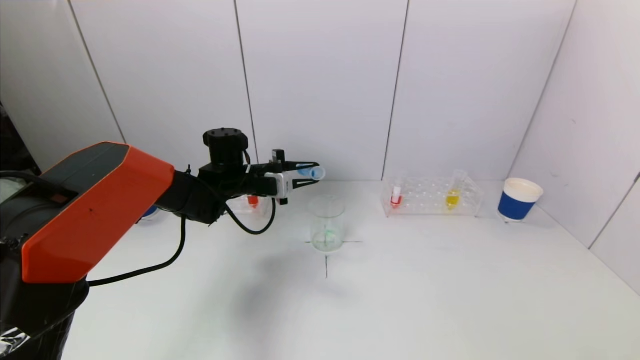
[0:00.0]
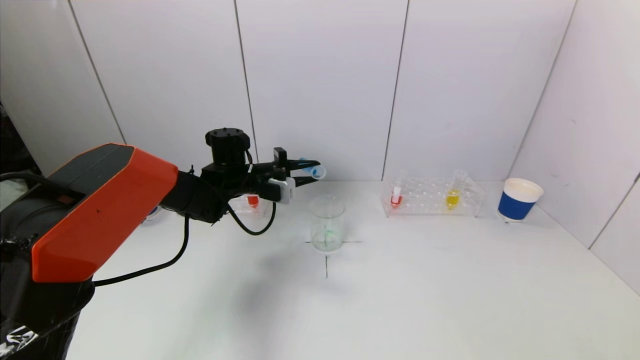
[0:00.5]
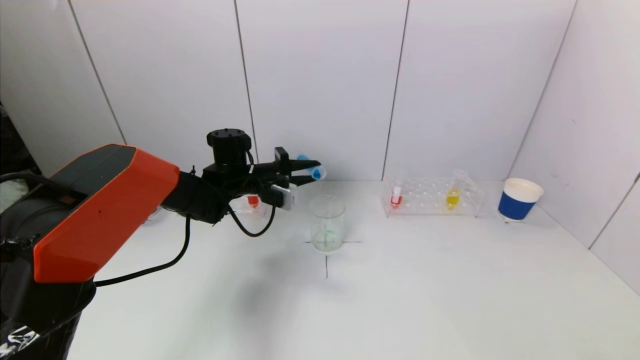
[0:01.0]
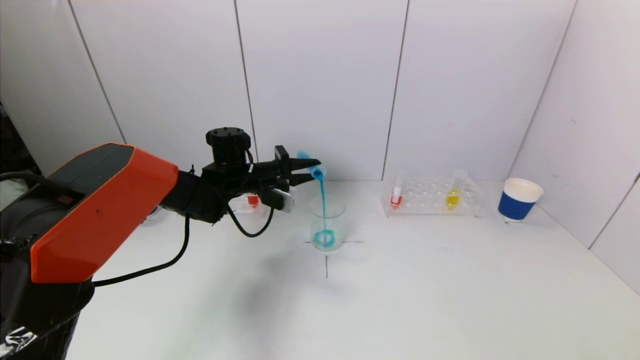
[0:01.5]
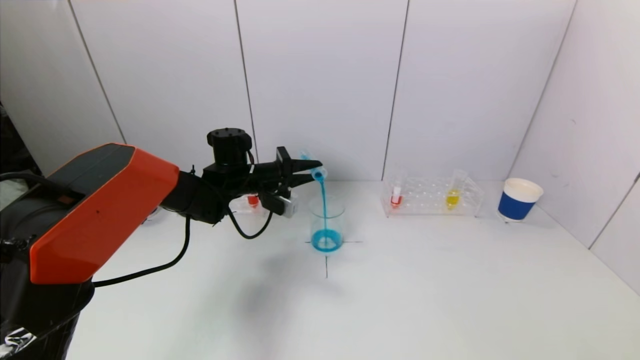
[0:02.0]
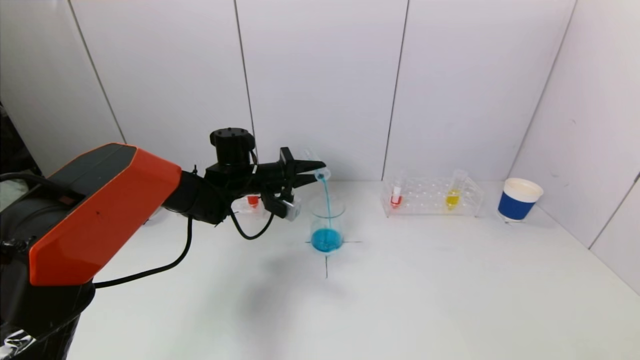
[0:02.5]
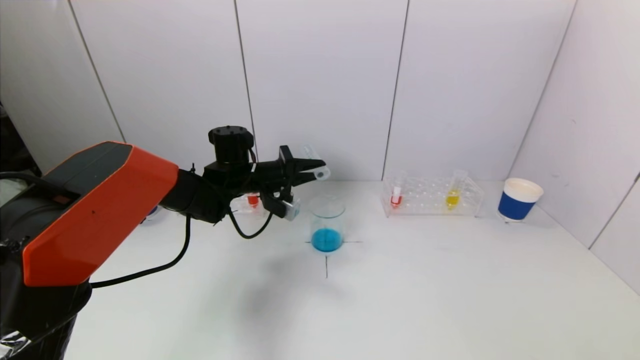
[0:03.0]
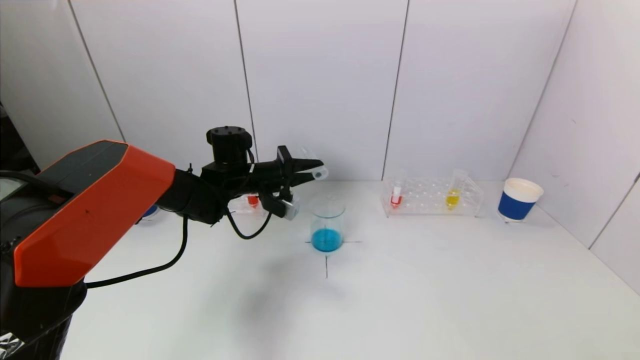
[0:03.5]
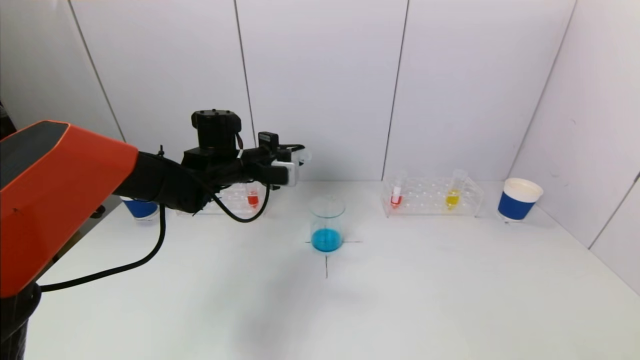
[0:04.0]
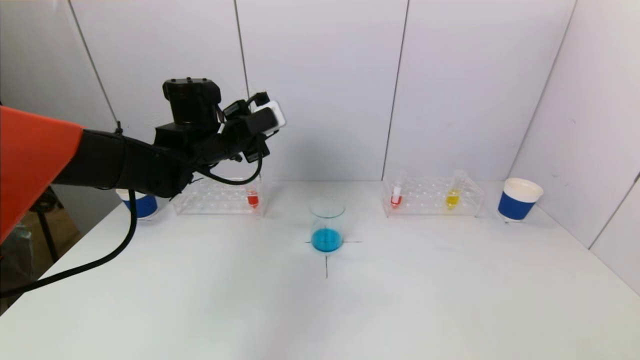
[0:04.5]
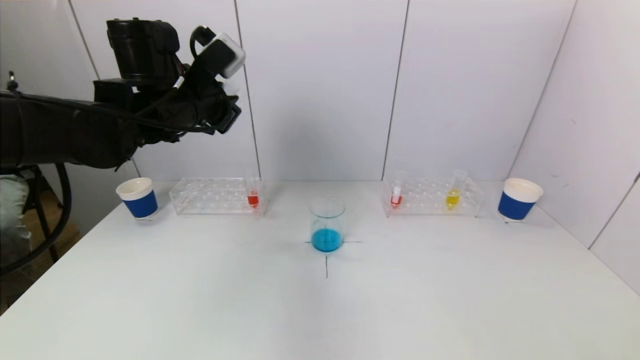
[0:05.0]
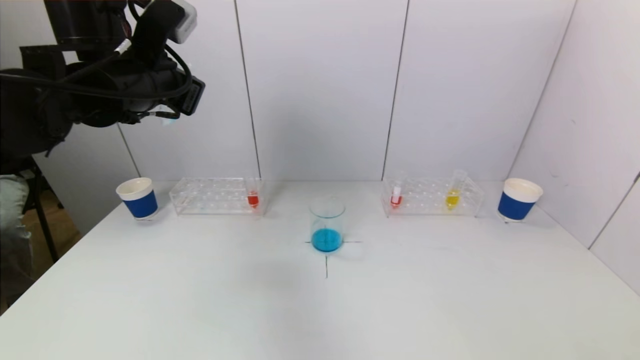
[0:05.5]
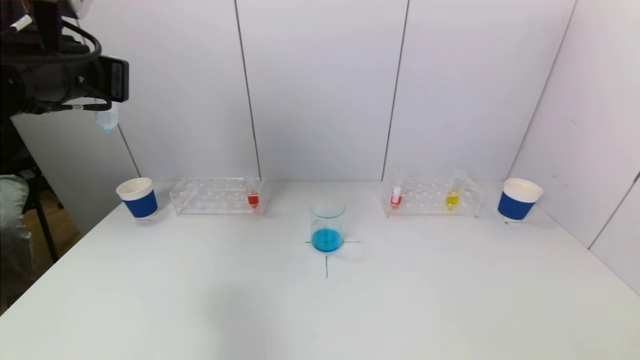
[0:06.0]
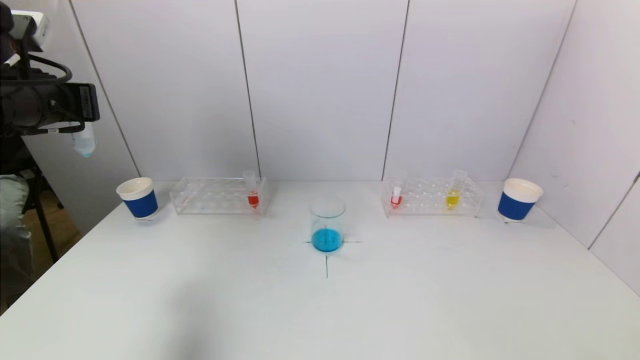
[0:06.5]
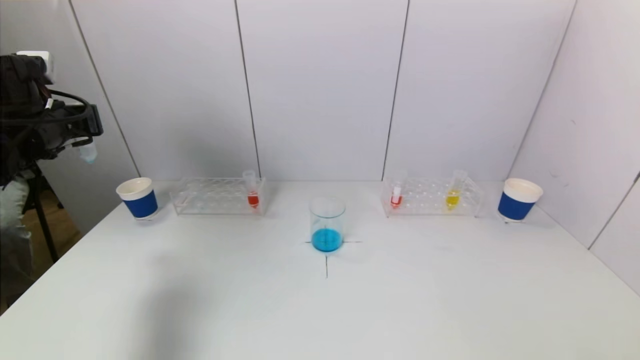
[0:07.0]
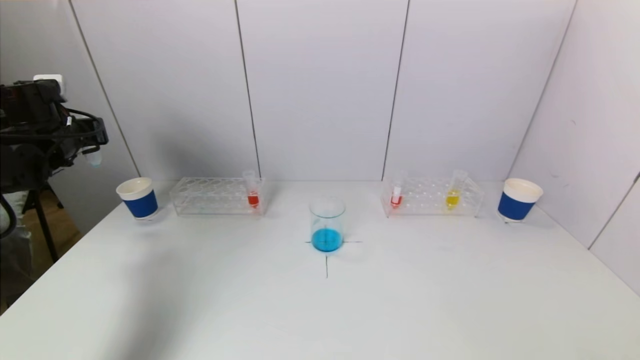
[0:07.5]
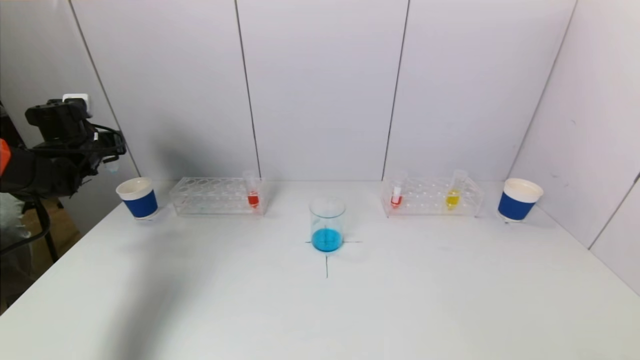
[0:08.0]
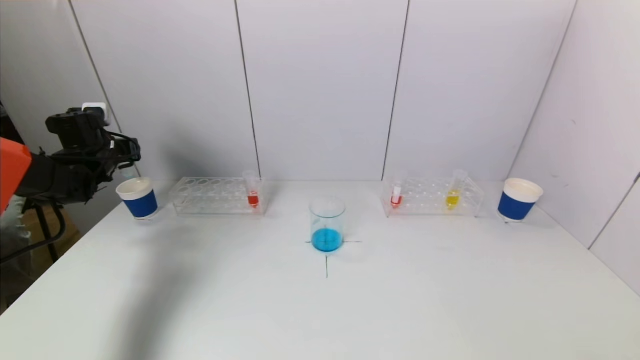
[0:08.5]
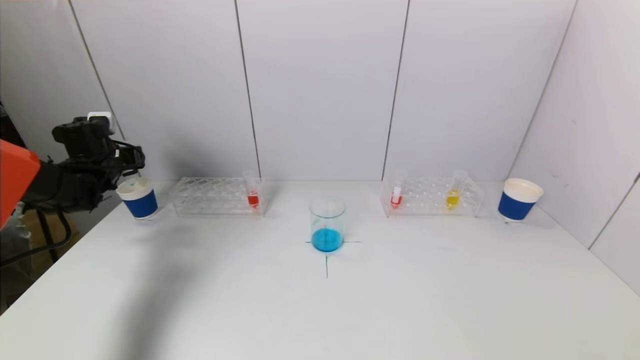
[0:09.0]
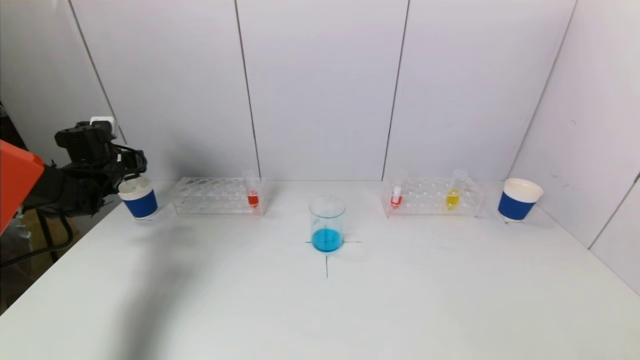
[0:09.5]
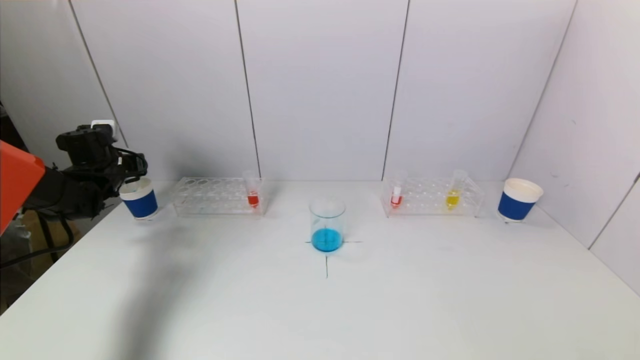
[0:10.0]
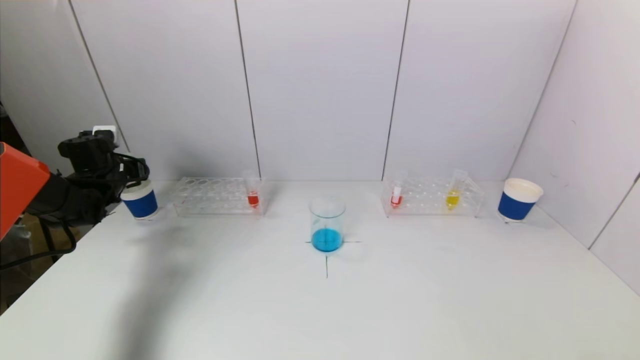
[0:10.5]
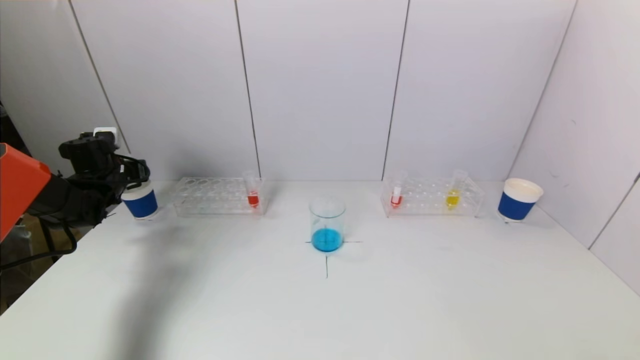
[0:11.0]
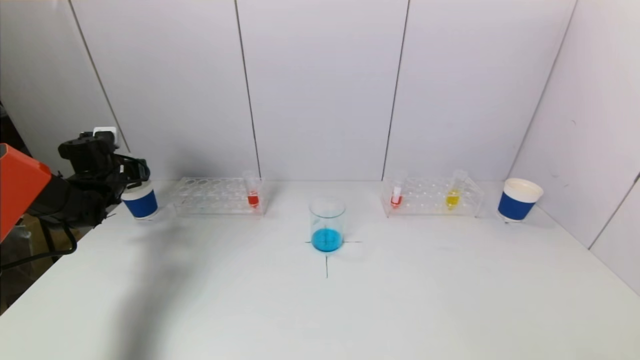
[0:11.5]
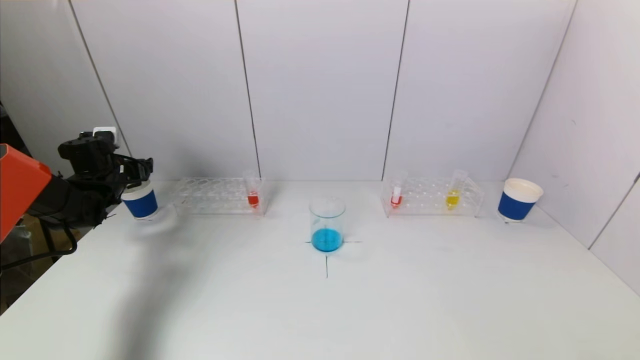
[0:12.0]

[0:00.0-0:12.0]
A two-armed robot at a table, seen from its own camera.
Task of the whole recording: pick up a test tube with pigment on left test tube rack and a test tube with pigment on right test tube rack by grippers and pour them into the beaker.
Step, 0:00.0 to 0:03.0: Pour the blue reagent into the graduated cylinder with the left gripper.
Step, 0:03.5 to 0:12.0: Place the test tube into the paper cup with the left gripper.
0:02.0 to 0:04.0: The left gripper ends up approximately 5 cm from where it was.
0:04.0 to 0:06.0: The left gripper is displaced upward, backward and to the left by some 25 cm.
0:06.0 to 0:08.0: The left gripper is displaced forward, downward and to the left by roughly 30 cm.
0:08.0 to 0:10.0: The left gripper travels downward by roughly 5 cm.
0:10.0 to 0:12.0: The left gripper opens up.

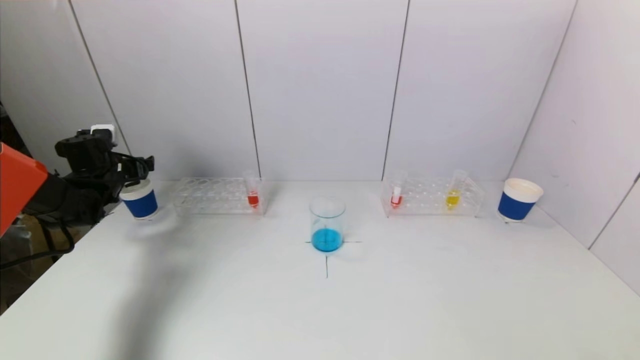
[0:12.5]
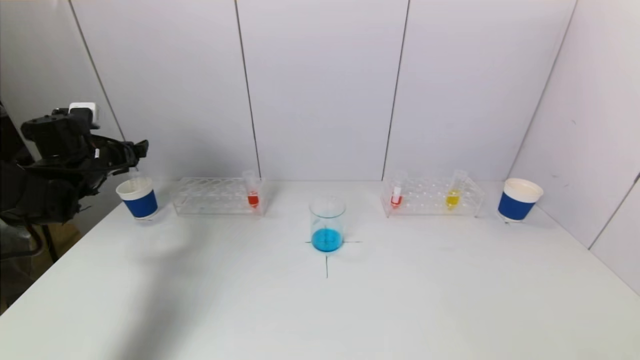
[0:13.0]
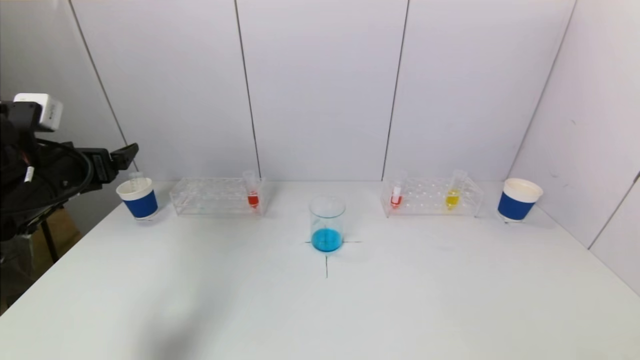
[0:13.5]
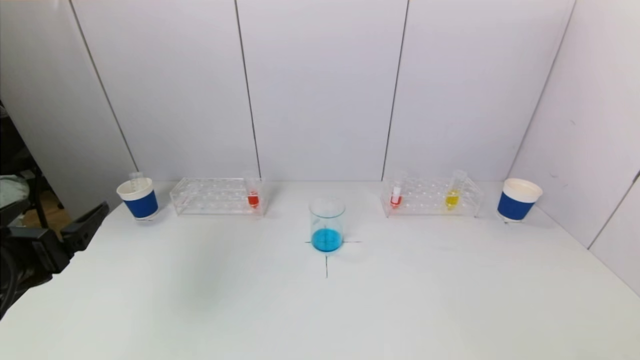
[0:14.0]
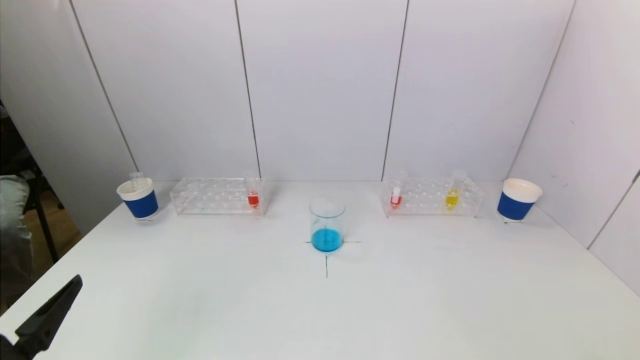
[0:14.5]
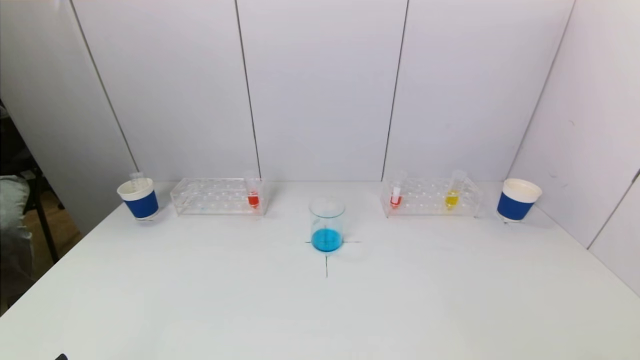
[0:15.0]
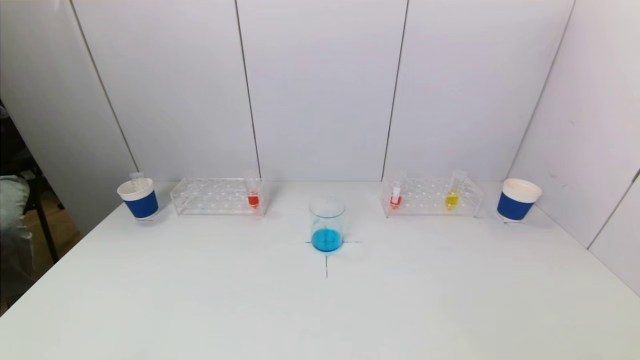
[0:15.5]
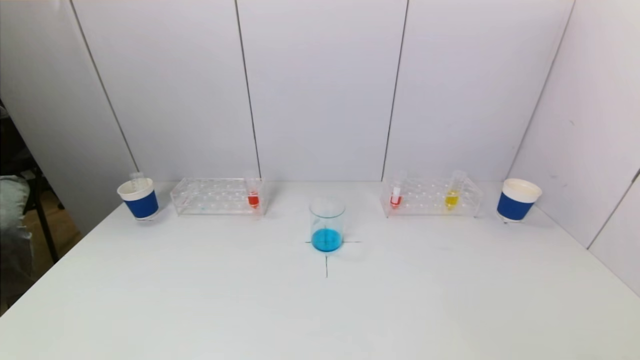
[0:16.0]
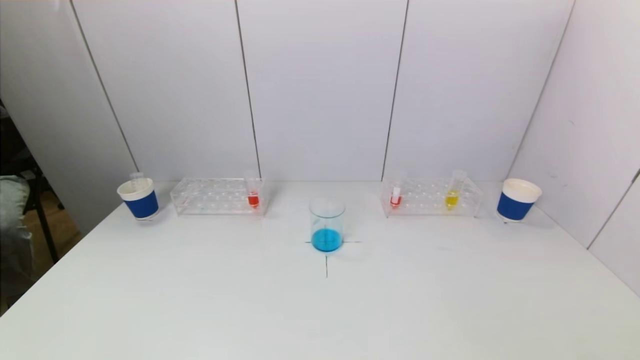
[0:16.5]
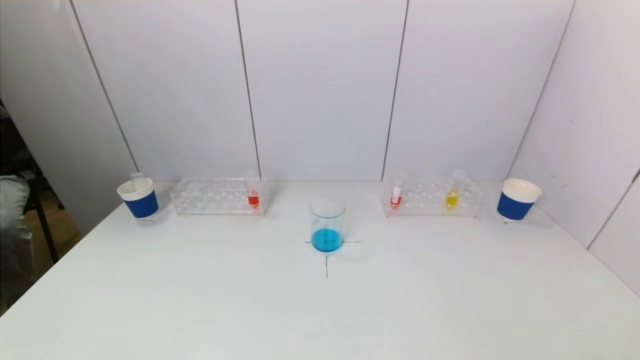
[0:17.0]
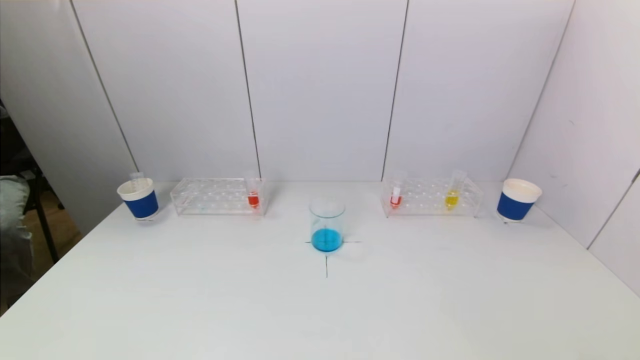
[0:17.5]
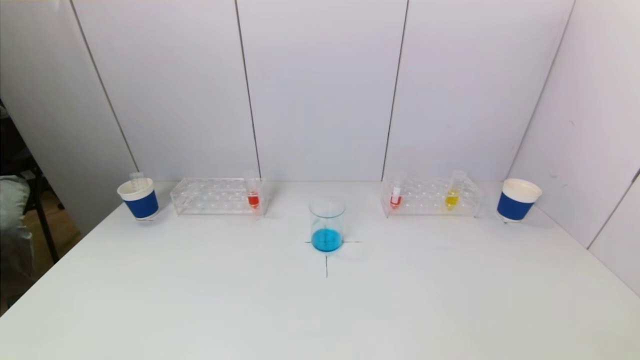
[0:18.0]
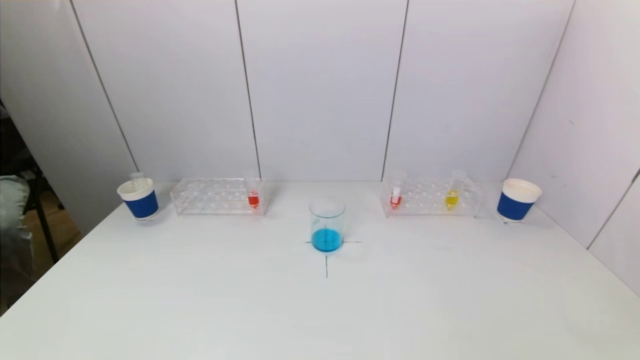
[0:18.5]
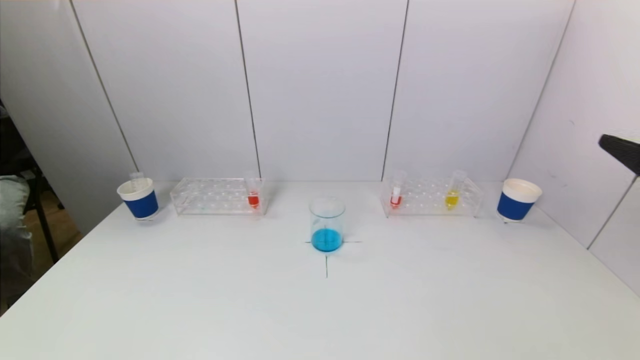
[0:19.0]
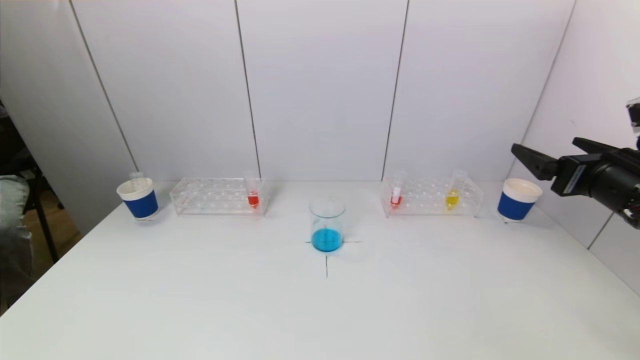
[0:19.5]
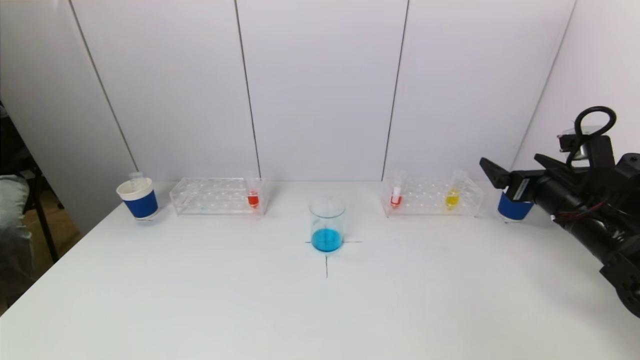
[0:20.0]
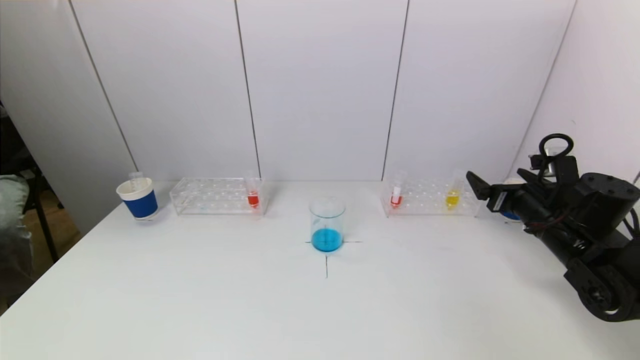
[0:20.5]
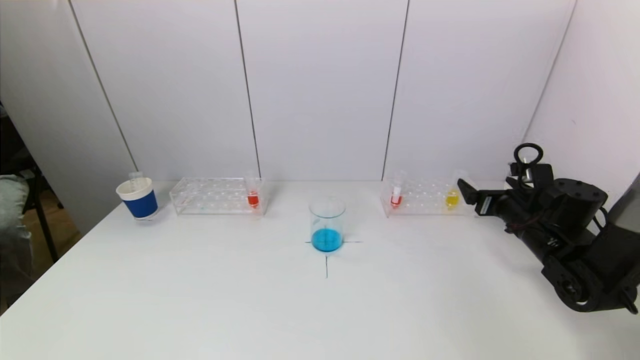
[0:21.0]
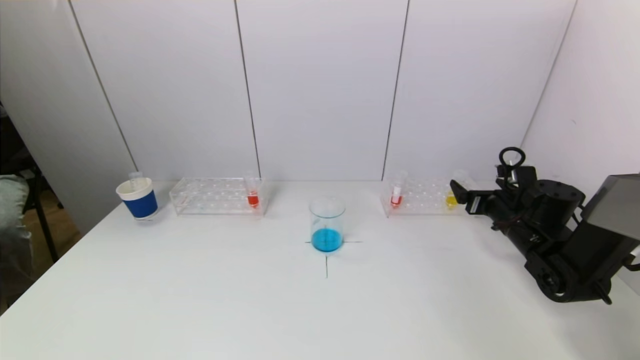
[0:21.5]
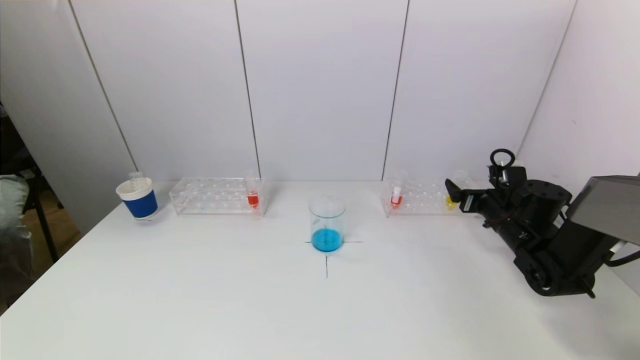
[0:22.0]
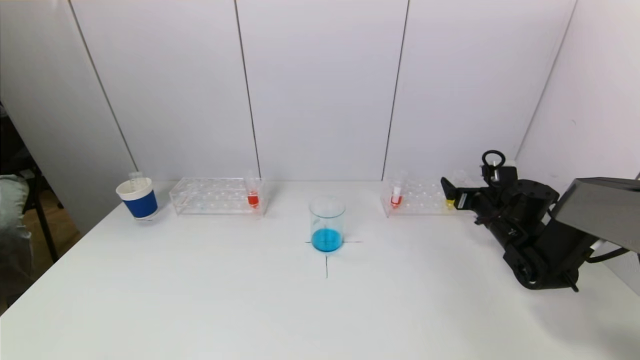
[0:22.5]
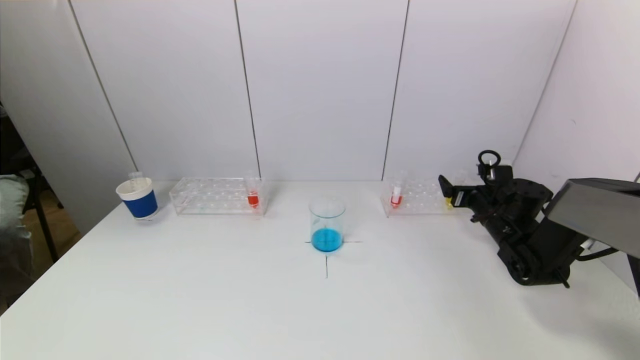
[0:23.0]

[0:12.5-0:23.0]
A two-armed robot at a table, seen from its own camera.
Task of the whole recording: pick up a test tube with pigment on left test tube rack and a test tube with pigment on right test tube rack by grippers and pour them into the beaker.
0:12.5 to 0:14.5: The left gripper shifts some 40 cm backward.
0:14.5 to 0:16.5: The left gripper heads downward and backward, covering about 10 cm.
0:16.5 to 0:19.0: The right gripper moves upward and forward, about 25 cm.
0:19.0 to 0:21.0: The right gripper shifts approximately 30 cm forward and downward.
0:21.0 to 0:23.0: The right gripper moves forward, some 5 cm.
